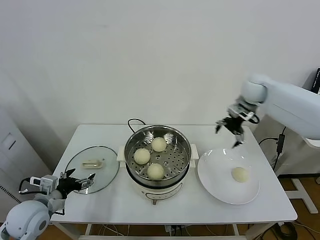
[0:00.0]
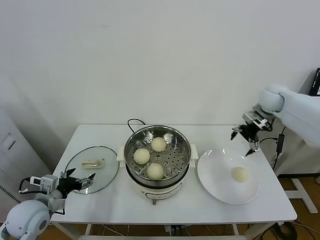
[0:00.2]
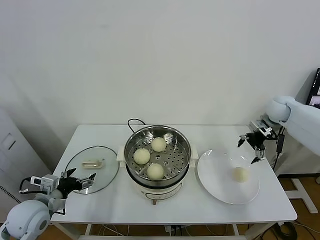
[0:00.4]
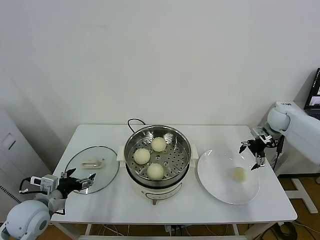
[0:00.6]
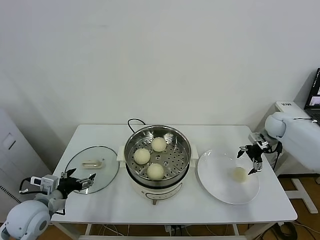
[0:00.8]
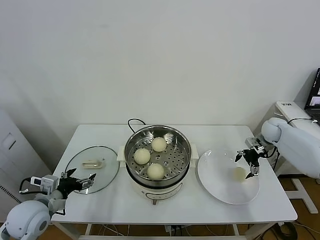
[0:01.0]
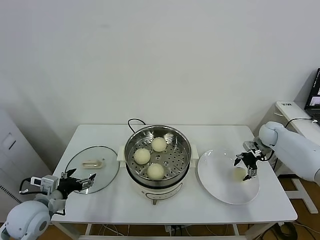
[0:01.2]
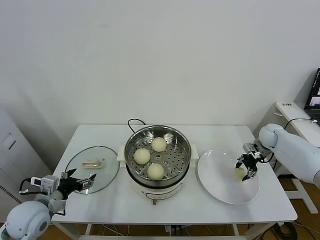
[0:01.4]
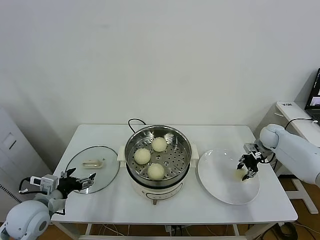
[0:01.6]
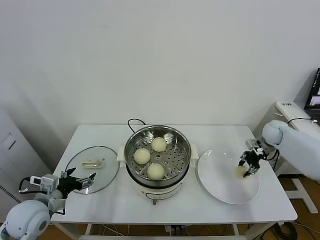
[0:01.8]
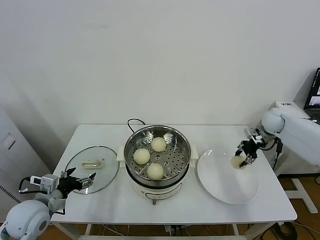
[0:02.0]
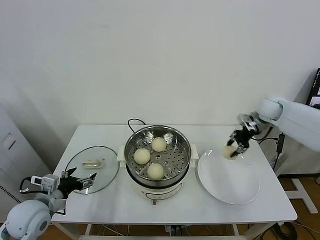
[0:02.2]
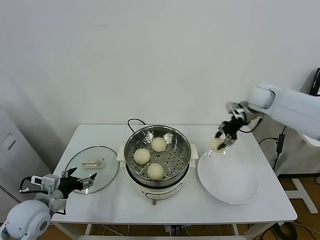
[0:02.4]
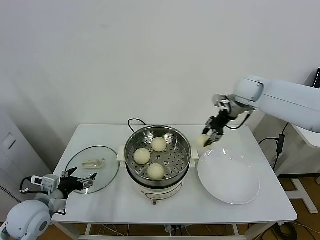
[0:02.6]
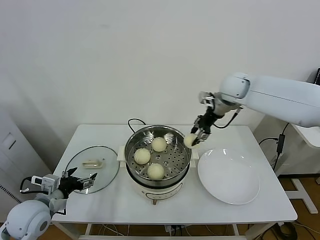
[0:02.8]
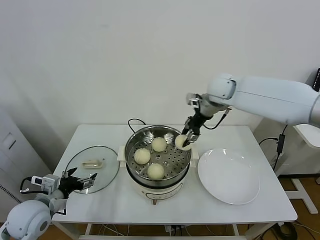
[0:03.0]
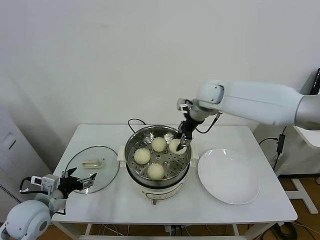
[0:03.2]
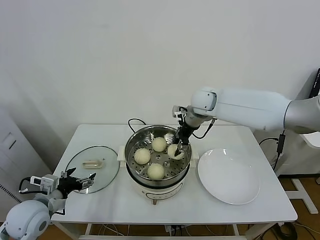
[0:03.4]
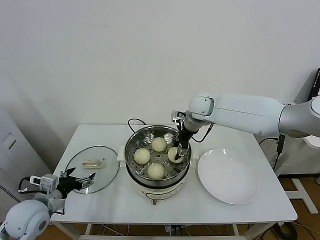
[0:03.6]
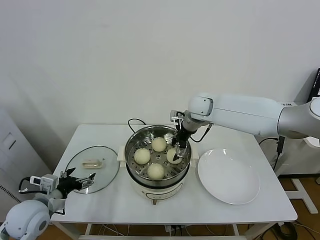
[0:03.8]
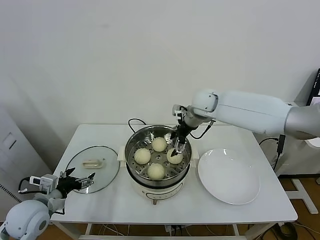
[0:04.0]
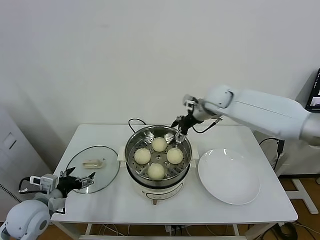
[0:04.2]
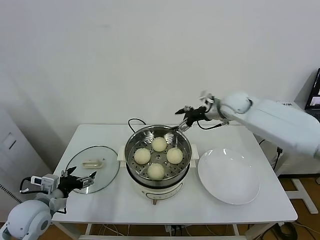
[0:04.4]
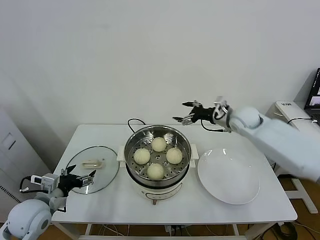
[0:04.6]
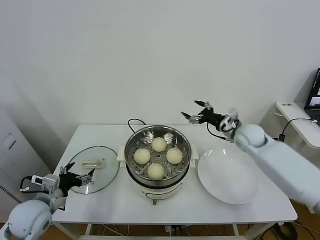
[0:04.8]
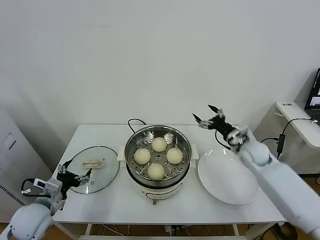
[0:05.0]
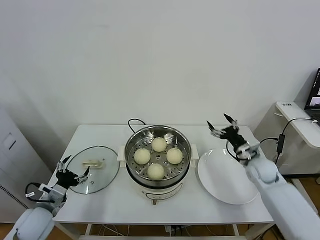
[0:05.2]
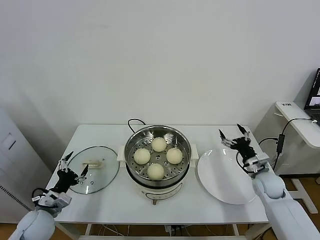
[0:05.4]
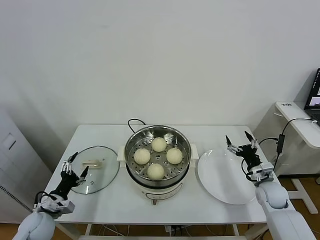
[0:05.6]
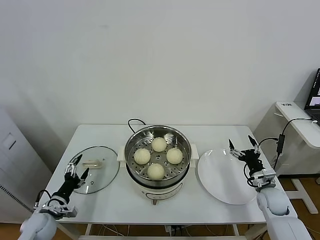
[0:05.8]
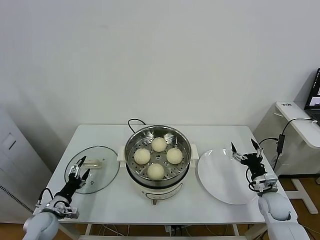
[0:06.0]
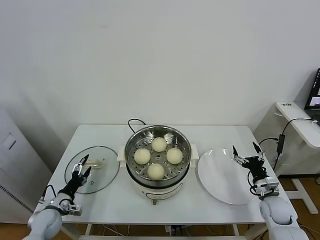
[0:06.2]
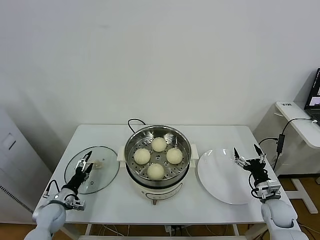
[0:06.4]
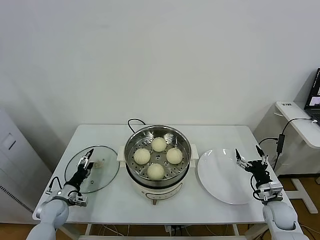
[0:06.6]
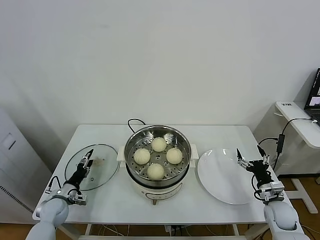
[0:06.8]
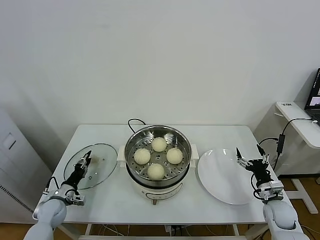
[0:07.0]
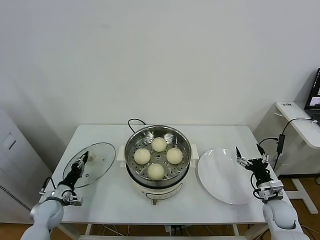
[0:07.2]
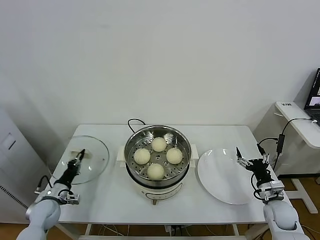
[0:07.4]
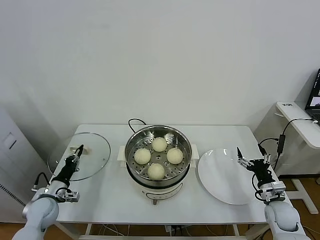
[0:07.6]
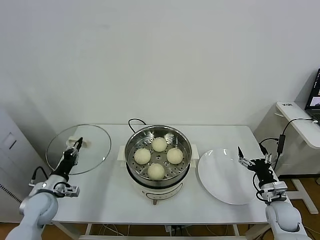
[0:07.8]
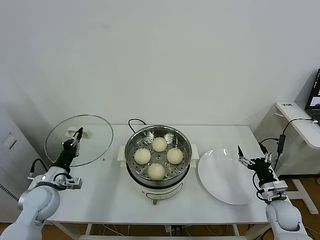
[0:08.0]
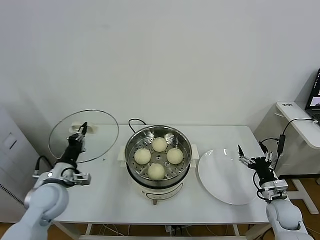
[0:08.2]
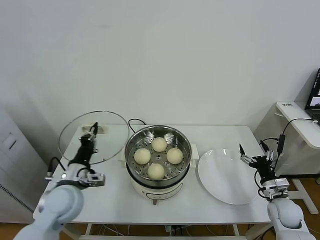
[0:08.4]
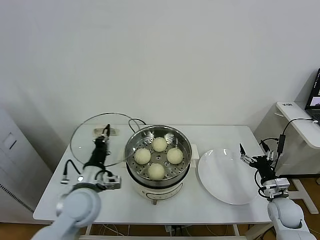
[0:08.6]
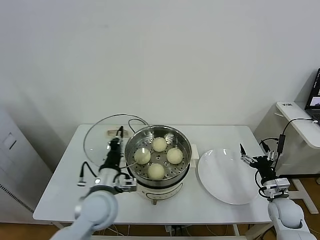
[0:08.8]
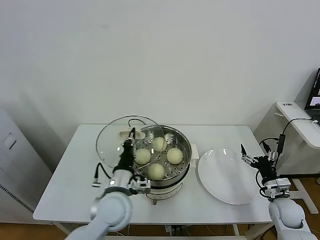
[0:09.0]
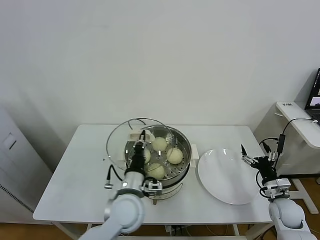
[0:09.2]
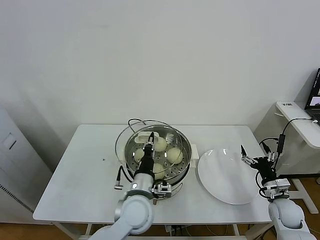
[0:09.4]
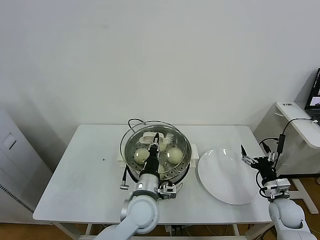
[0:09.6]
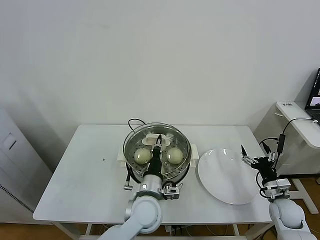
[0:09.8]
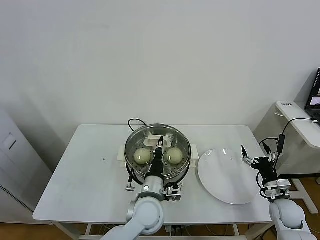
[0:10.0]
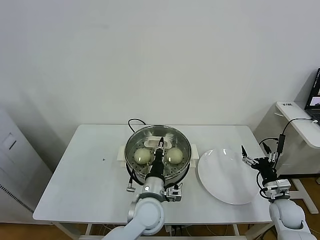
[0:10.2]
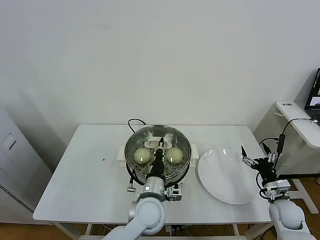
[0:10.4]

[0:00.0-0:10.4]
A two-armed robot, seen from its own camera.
Task of the whole recording: take steamed baozi put them in steamer.
Step, 0:00.0 to 0:01.6: Grasp the baozi in the plate with right gripper.
Step, 0:01.8 to 0:04.0: Place the baozi on the steamer with right gripper.
Step, 0:04.2 to 0:07.4: Grasp the pot lid with left gripper.
0:00.0 to 0:01.4: The right gripper is displaced downward and to the right by roughly 25 cm, and closes its fingers.
0:01.4 to 0:03.0: The right gripper moves to the left and upward, about 35 cm.
0:03.0 to 0:04.4: The right gripper moves to the right and downward, roughly 10 cm, and opens.
0:04.4 to 0:06.0: The left gripper heads downward, covering about 15 cm. Meanwhile the right gripper shifts about 40 cm downward, backward and to the right.
0:06.0 to 0:07.4: The left gripper closes.
0:07.4 to 0:09.0: The left gripper goes roughly 30 cm to the right and upward.
0:09.0 to 0:10.4: The left gripper goes approximately 10 cm to the right.

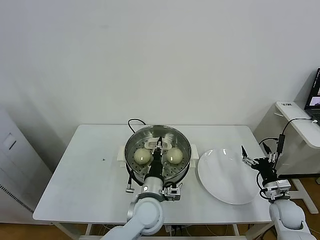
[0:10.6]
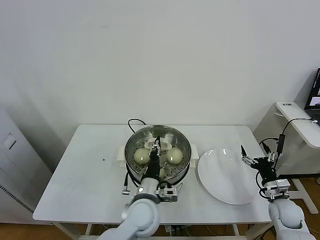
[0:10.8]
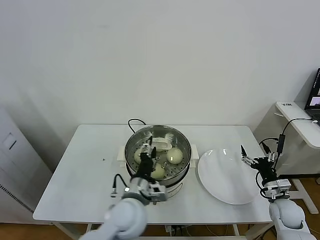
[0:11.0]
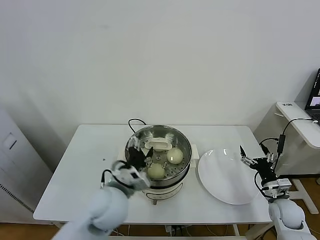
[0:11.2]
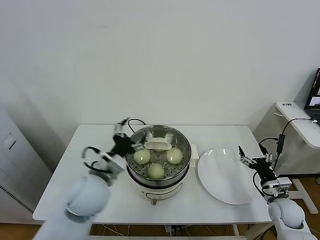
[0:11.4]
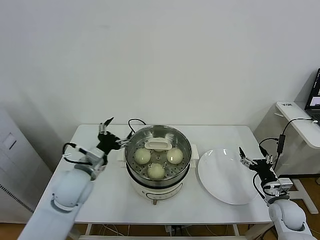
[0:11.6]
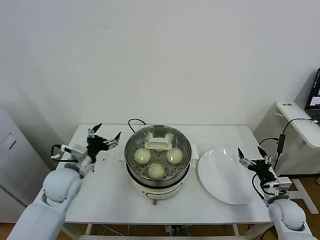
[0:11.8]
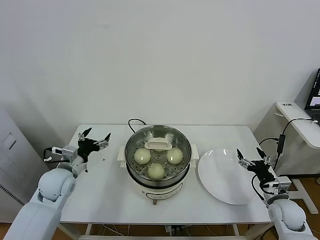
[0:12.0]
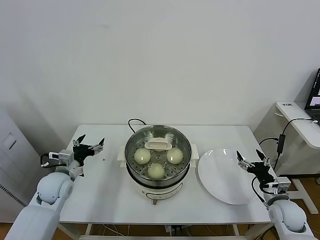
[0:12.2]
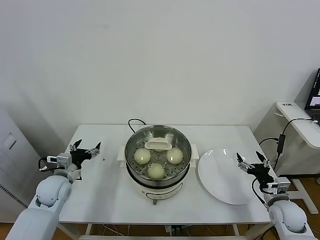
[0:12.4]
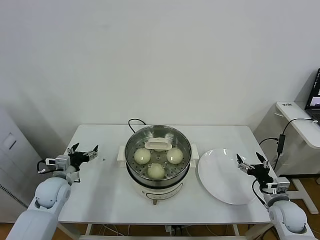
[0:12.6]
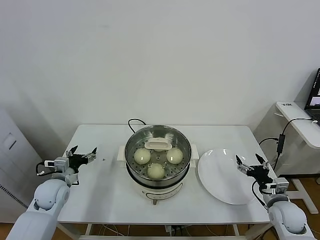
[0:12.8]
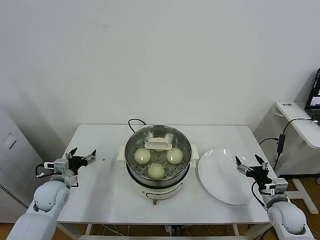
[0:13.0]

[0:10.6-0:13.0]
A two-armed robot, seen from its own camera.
Task of the whole recording: take steamed baozi put them in steamer.
0:10.6 to 0:11.8: The left gripper moves to the left, some 25 cm, and opens up.
0:11.8 to 0:13.0: The left gripper travels downward and to the left by roughly 15 cm.

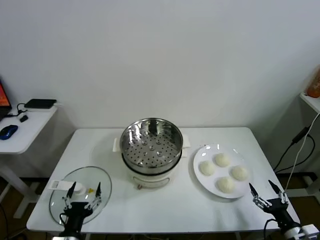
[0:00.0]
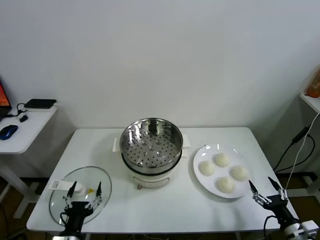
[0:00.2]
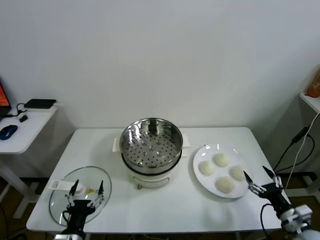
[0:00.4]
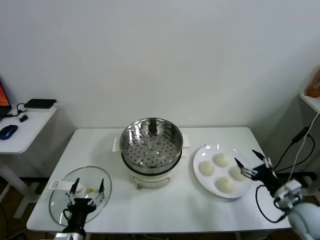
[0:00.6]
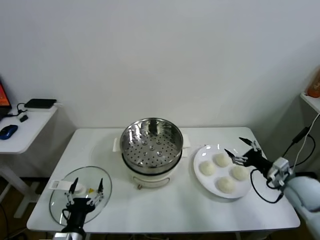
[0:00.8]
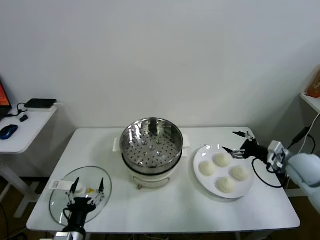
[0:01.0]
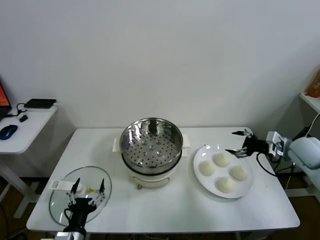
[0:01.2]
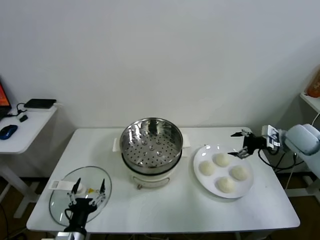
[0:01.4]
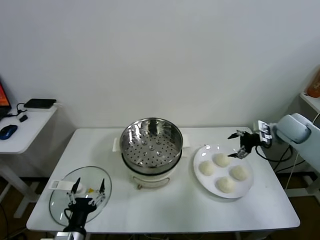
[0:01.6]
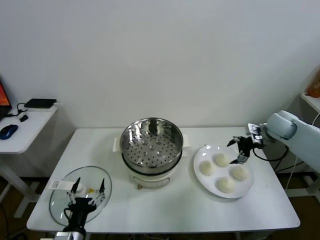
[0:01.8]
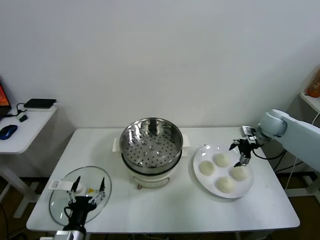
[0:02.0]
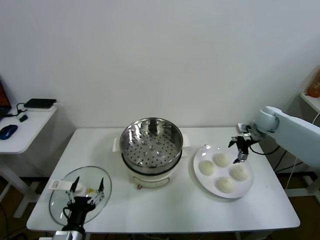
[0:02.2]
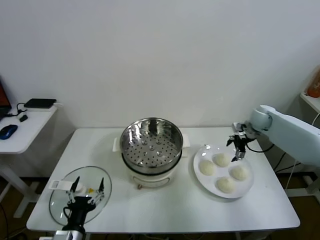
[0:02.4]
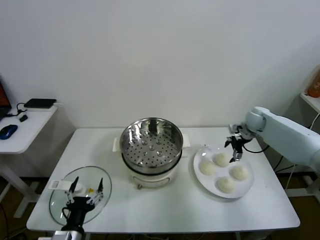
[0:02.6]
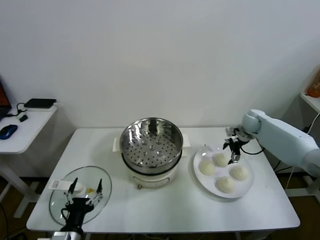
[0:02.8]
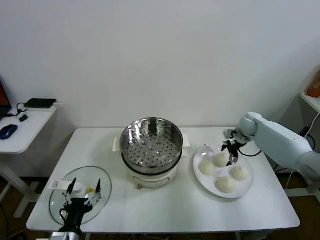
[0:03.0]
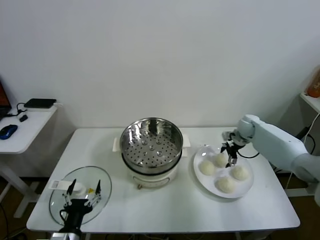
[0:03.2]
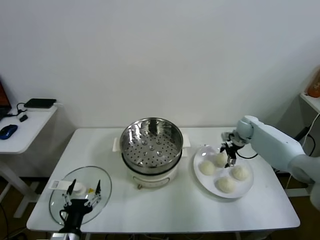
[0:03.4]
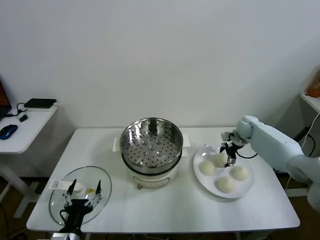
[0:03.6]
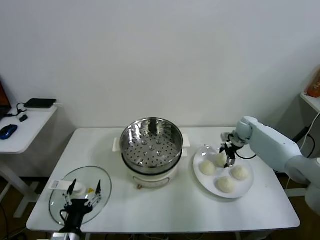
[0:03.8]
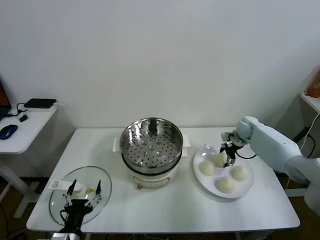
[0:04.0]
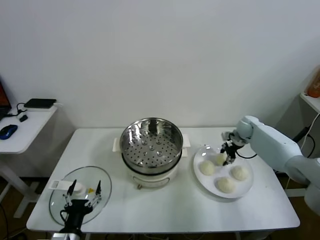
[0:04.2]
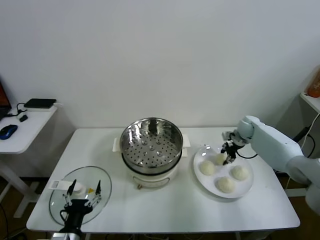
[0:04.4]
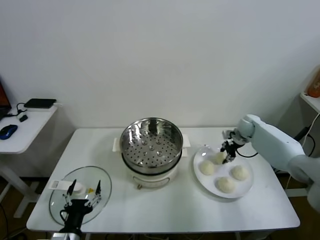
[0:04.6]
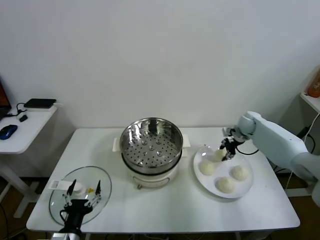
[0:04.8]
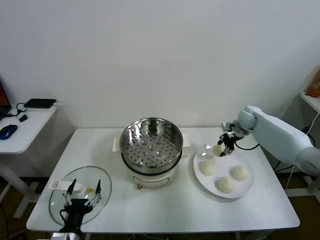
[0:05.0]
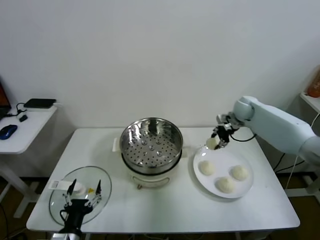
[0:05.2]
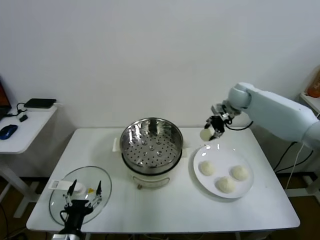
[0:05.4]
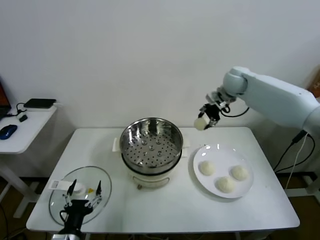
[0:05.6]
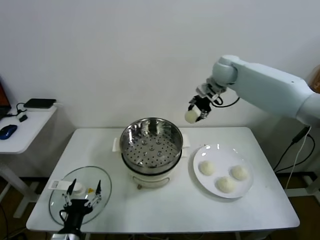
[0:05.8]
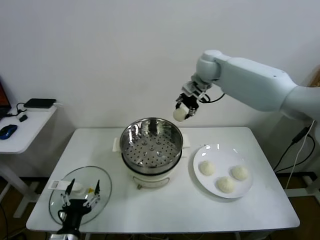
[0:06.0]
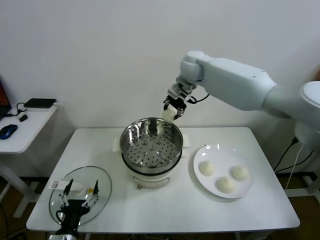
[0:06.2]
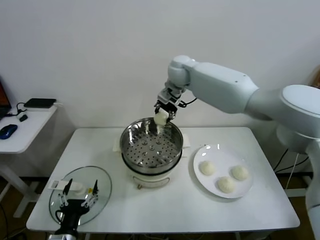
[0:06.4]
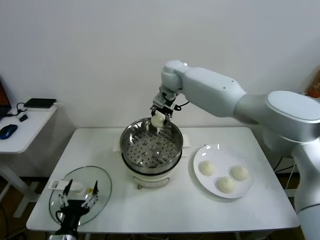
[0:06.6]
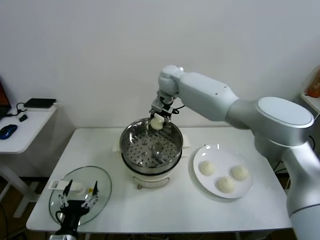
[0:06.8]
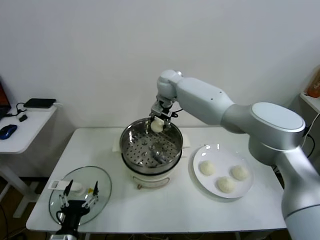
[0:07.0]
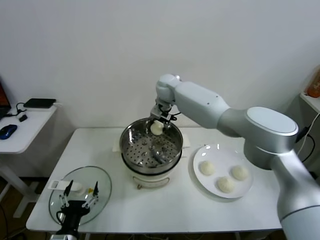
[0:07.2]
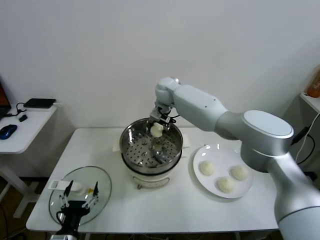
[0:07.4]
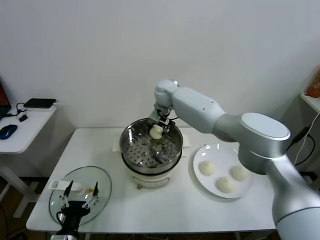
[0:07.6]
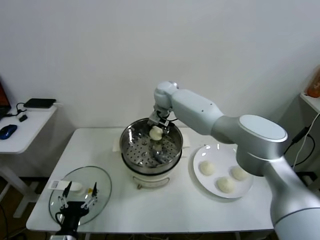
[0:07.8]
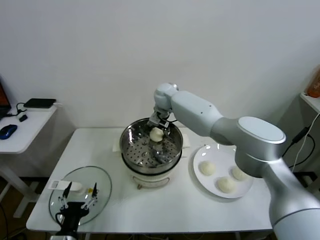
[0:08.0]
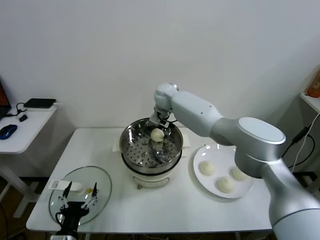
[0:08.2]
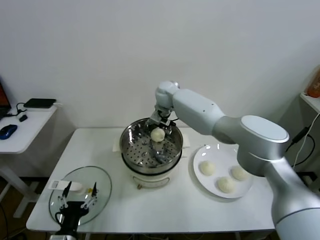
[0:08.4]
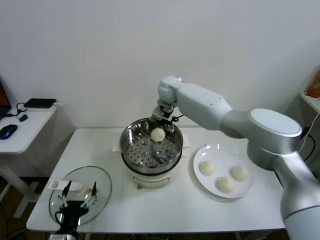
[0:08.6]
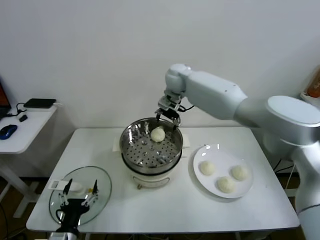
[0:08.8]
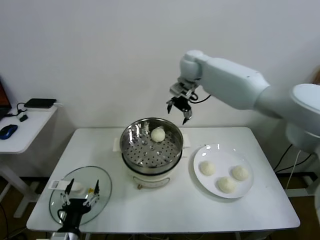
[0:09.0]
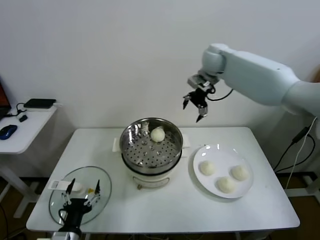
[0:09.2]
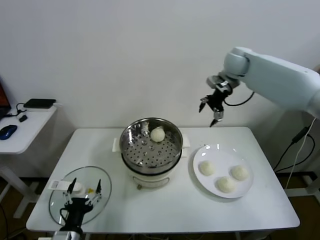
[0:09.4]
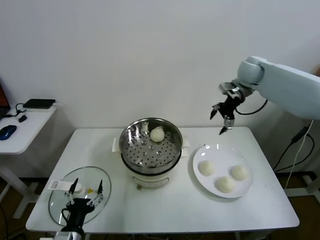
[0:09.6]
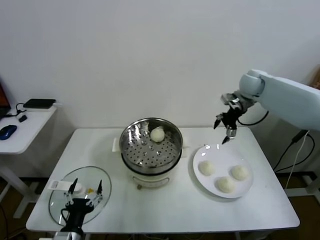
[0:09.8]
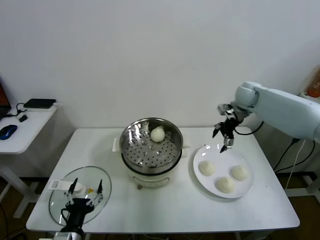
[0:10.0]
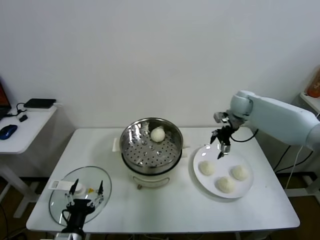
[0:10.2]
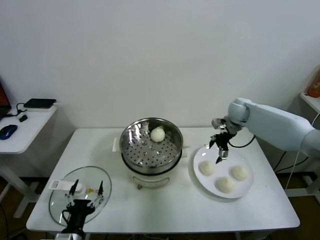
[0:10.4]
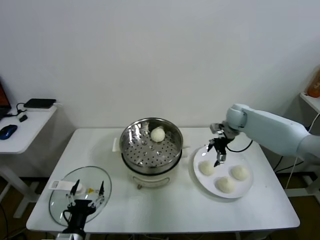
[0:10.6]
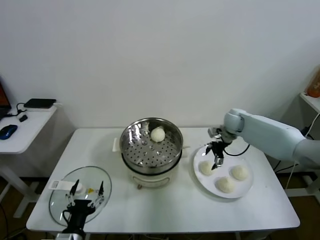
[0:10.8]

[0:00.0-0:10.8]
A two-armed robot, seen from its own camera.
Task of the whole recording: take steamed baozi put them in steamer.
Step, 0:00.0 to 0:04.4: Grasp the baozi in the plate with right gripper.
Step, 0:04.6 to 0:08.2: Place the baozi on the steamer with right gripper.
0:01.6 to 0:03.0: The right gripper moves downward and forward, roughly 10 cm.
0:03.0 to 0:04.6: The right gripper closes up.
0:04.6 to 0:06.2: The right gripper shifts roughly 40 cm to the left and upward.
0:06.2 to 0:07.8: The right gripper shifts about 15 cm downward and to the left, and opens.
0:07.8 to 0:09.2: The right gripper shifts some 25 cm to the right and upward, and opens up.
0:09.2 to 0:10.8: The right gripper moves downward, some 25 cm.
